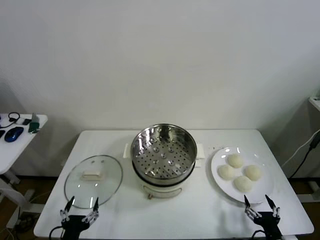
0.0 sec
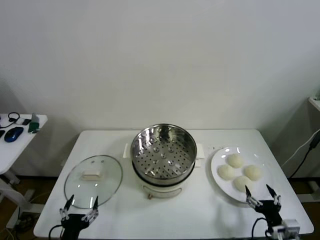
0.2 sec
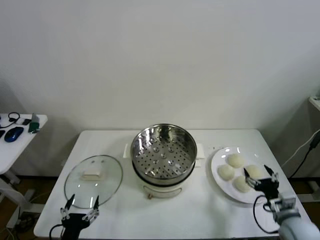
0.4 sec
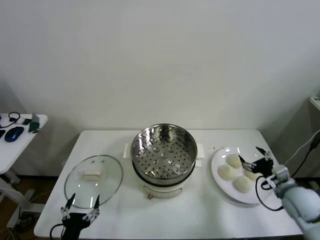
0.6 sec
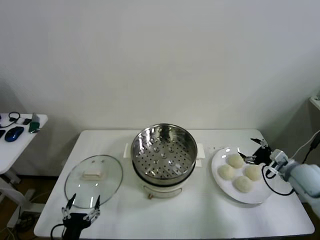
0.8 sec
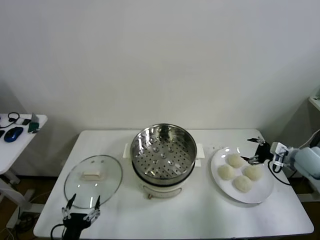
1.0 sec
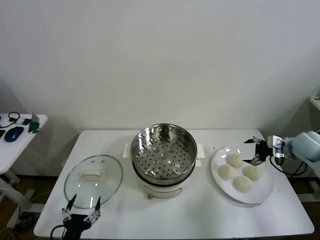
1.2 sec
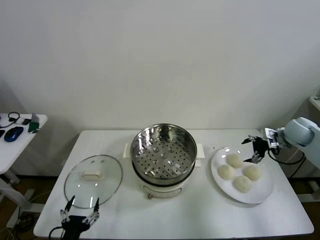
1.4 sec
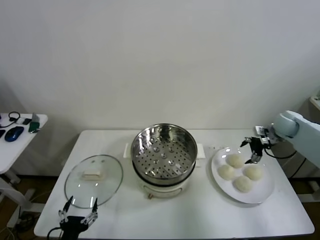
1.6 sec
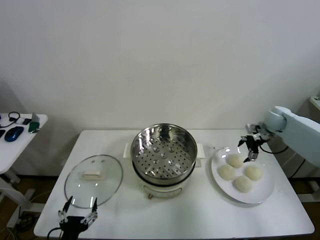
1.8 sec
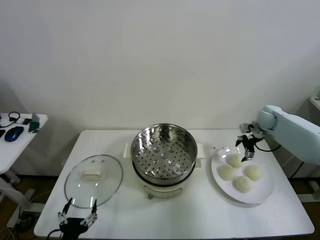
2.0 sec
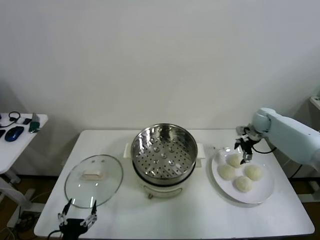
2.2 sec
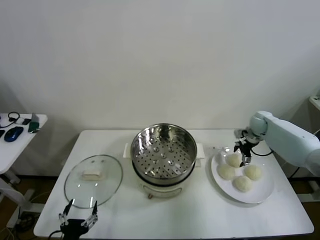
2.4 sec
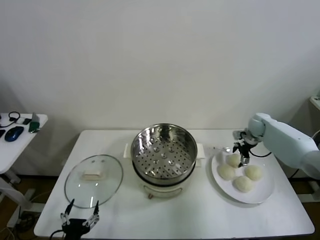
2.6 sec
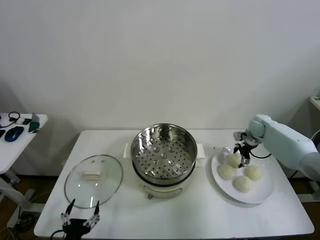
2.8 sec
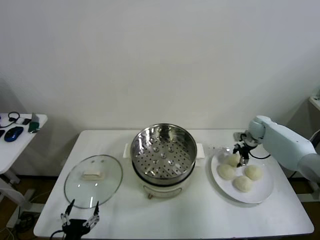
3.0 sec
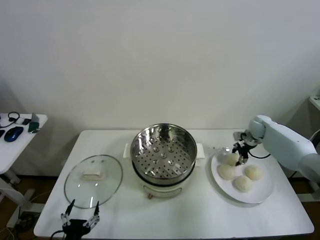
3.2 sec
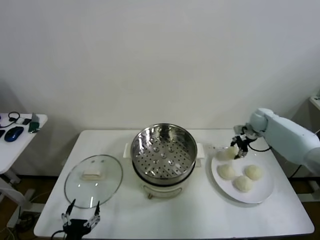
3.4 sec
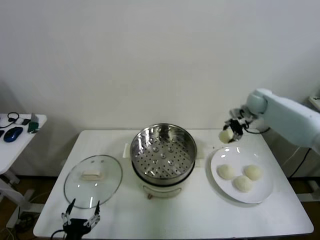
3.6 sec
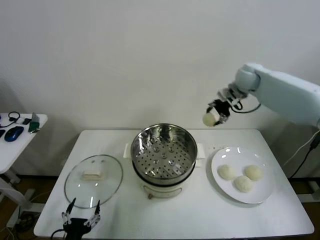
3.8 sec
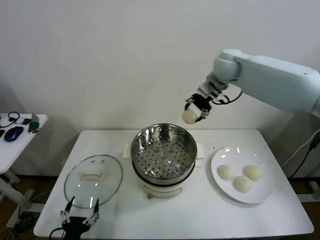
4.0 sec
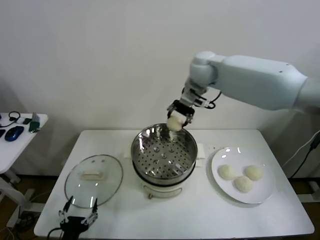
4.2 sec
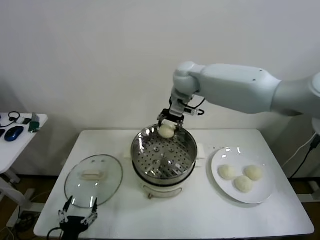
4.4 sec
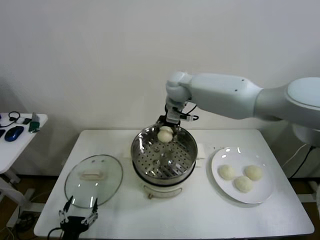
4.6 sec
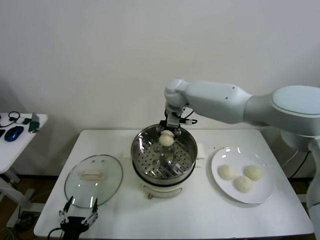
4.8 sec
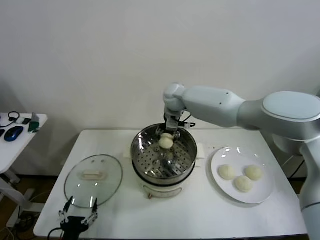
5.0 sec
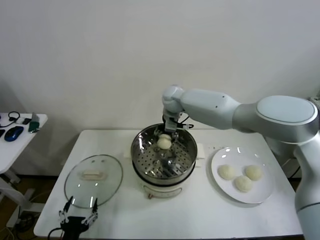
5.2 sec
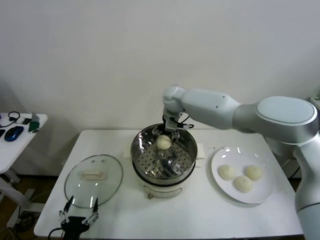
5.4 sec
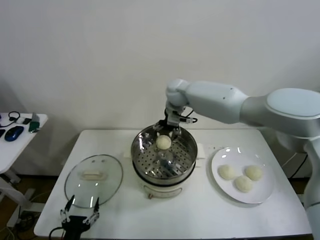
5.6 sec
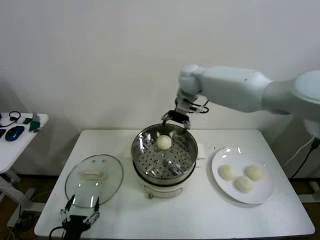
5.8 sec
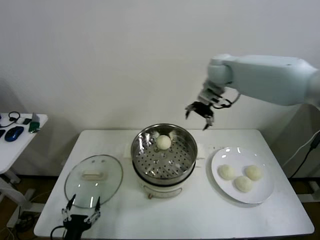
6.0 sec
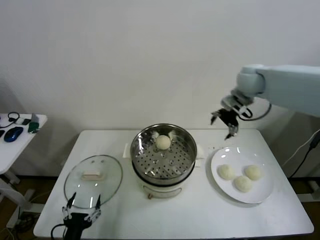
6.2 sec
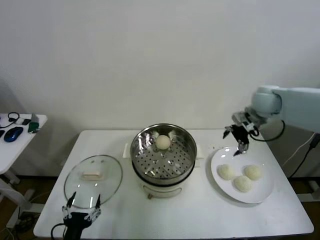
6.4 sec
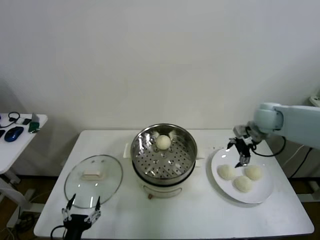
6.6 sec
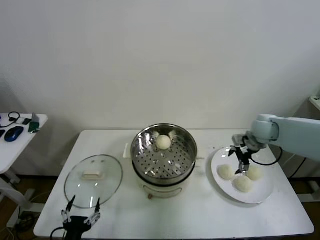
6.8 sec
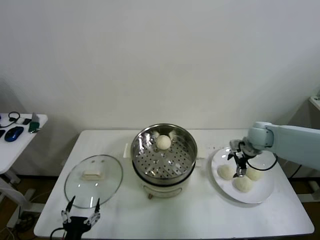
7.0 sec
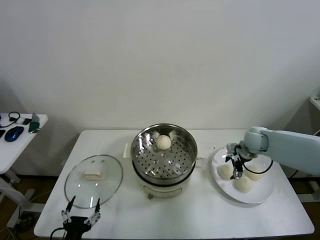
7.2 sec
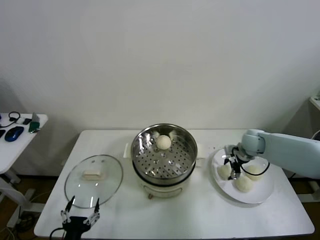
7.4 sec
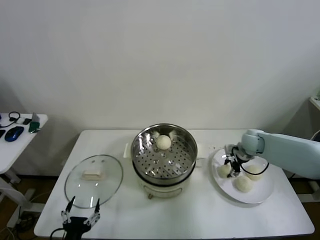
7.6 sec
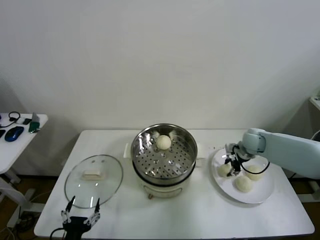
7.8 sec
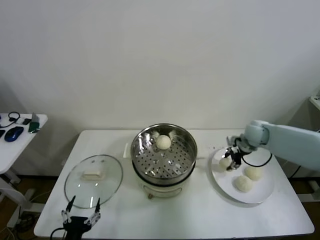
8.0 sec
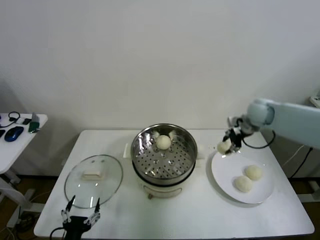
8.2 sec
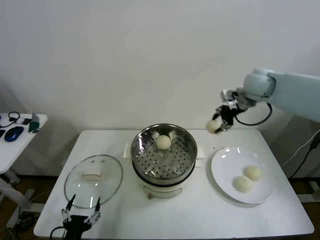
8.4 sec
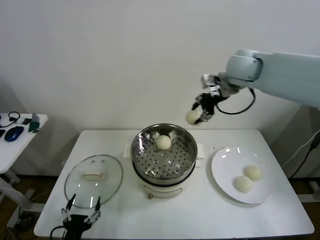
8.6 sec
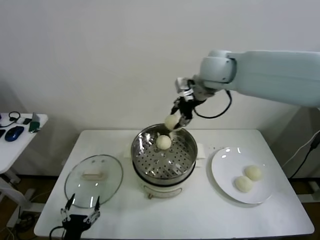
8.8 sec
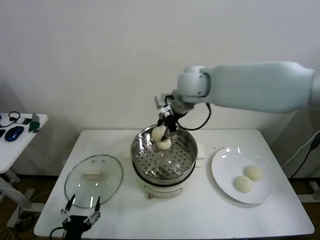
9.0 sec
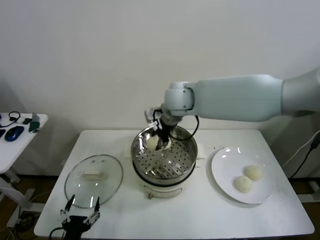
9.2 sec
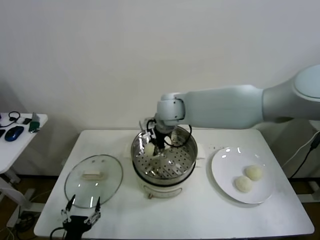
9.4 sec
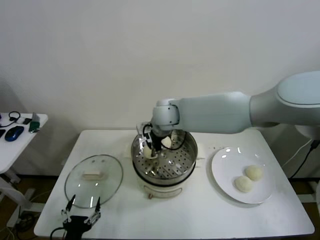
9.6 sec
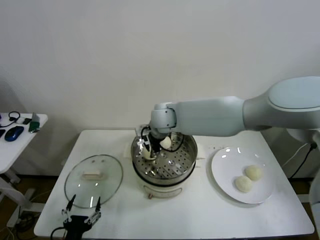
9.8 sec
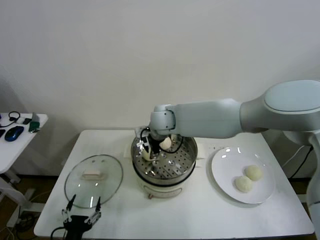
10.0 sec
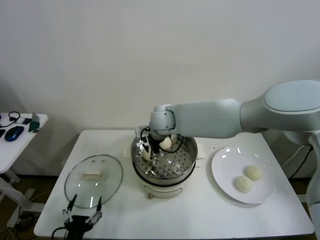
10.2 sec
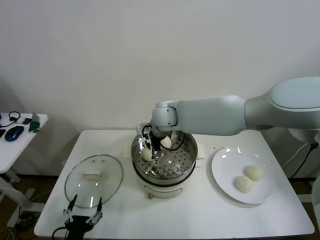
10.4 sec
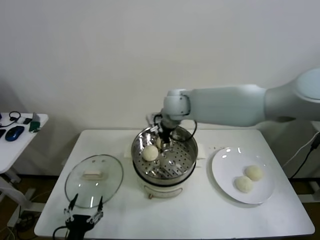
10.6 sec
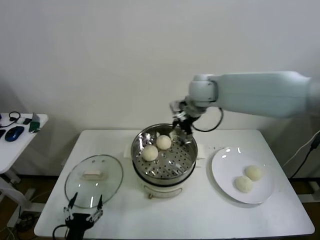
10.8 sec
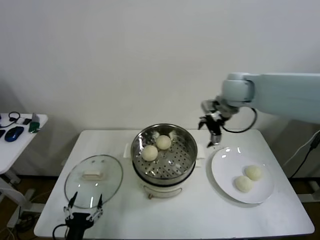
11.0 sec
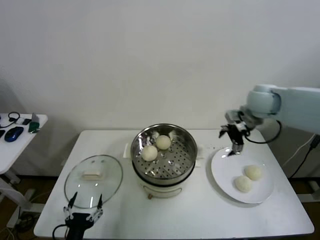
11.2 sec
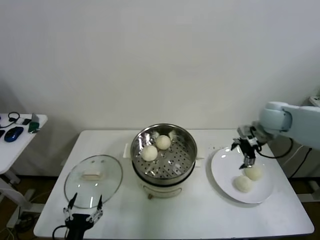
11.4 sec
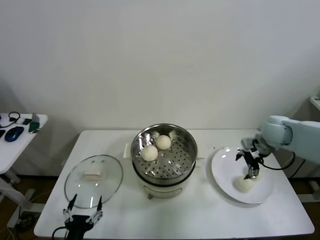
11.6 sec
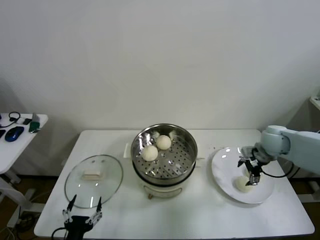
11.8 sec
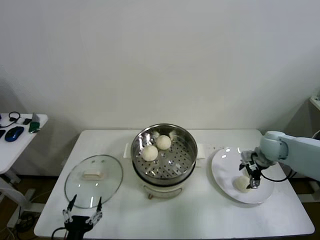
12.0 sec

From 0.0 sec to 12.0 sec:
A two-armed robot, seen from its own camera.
Step, from 0.0 sec to 3.0 sec: Grasp the baozi in the plate with right gripper.
Step, from 3.2 sec to 5.2 sec: Place the baozi on the steamer with right gripper.
Step, from 5.4 sec to 7.6 sec: Grasp the baozi in the plate with right gripper.
Step, from 7.8 sec to 10.2 sec: Place the baozi on the steamer with right gripper.
From 1.6 sec to 3.0 sec: The right gripper moves downward, roughly 10 cm, and closes its fingers.
From 3.0 sec to 4.4 sec: The right gripper heads to the left and upward, covering roughly 40 cm.
From 4.4 sec to 6.0 sec: The right gripper is displaced to the right by approximately 15 cm, and opens.
From 6.0 sec to 7.6 sec: The right gripper goes roughly 30 cm downward and to the right, and closes up.
From 7.6 sec to 9.0 sec: The right gripper shifts about 40 cm to the left and upward.
From 9.0 sec to 10.4 sec: The right gripper shifts approximately 10 cm downward and to the left, and opens.
From 10.4 sec to 12.0 sec: The right gripper is displaced to the right by about 35 cm.

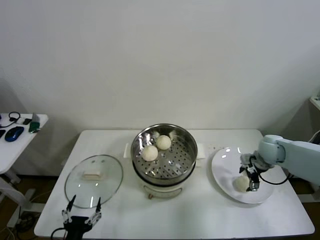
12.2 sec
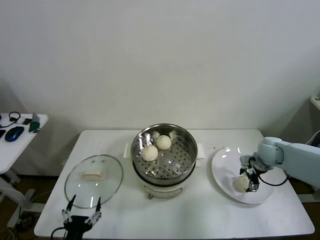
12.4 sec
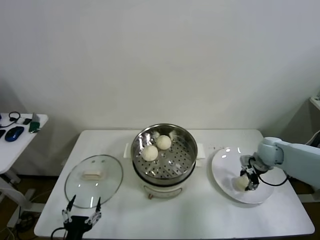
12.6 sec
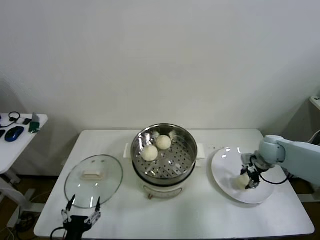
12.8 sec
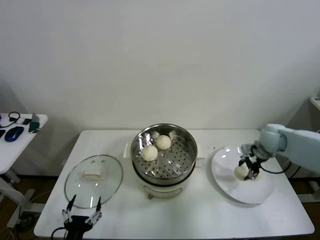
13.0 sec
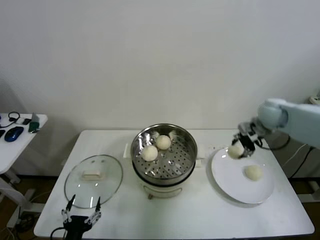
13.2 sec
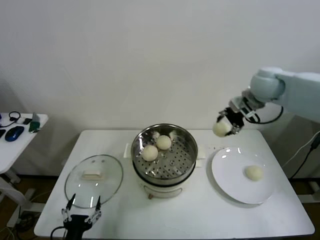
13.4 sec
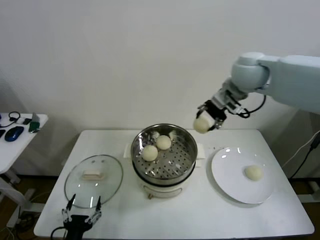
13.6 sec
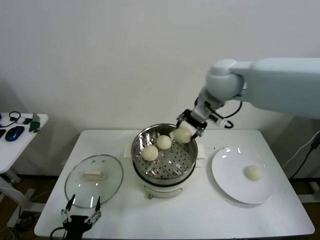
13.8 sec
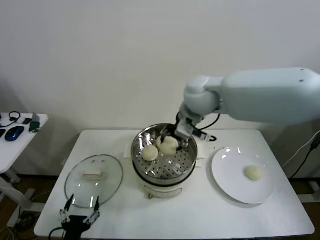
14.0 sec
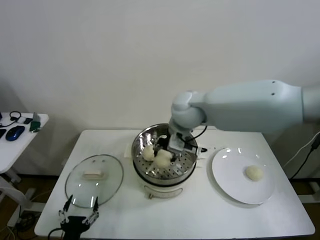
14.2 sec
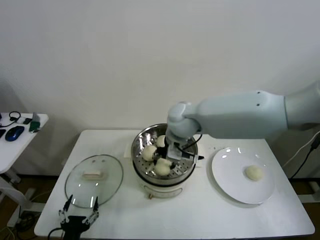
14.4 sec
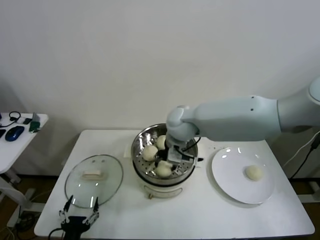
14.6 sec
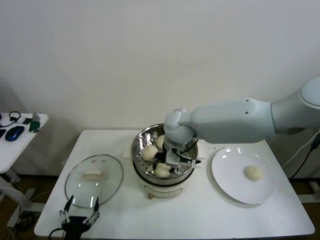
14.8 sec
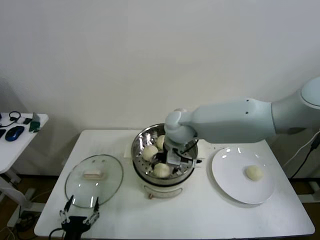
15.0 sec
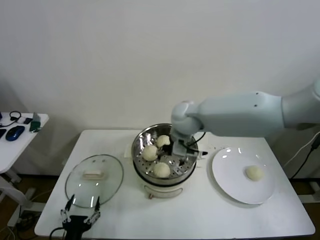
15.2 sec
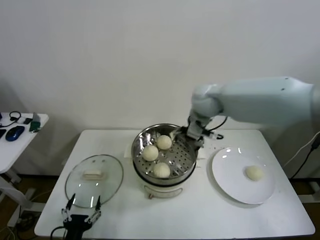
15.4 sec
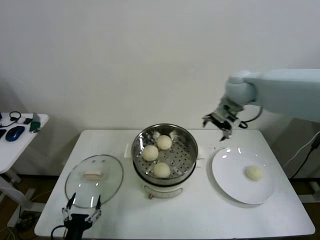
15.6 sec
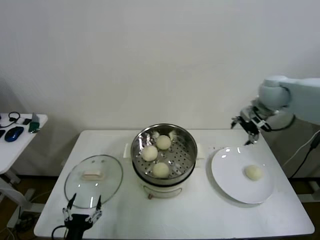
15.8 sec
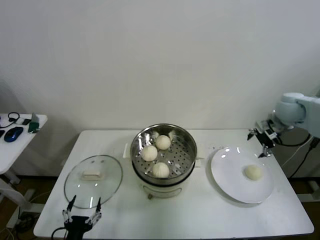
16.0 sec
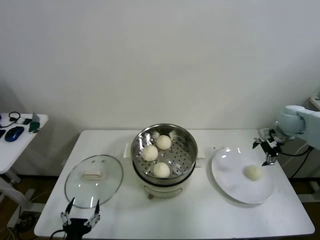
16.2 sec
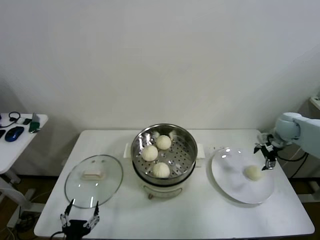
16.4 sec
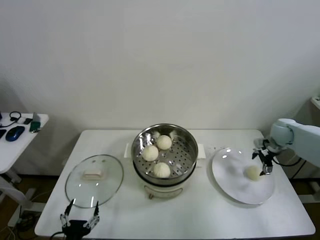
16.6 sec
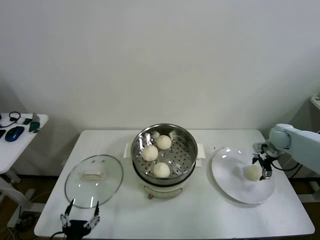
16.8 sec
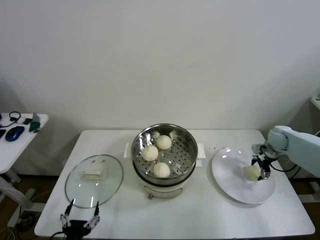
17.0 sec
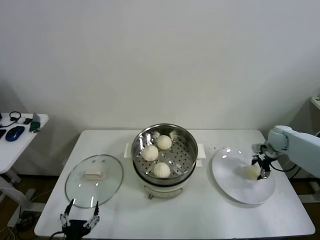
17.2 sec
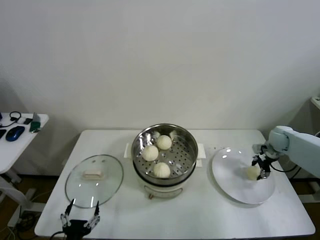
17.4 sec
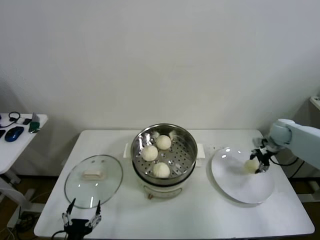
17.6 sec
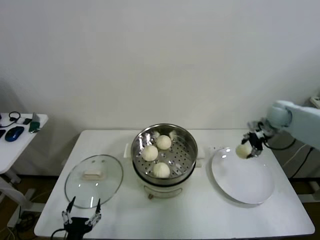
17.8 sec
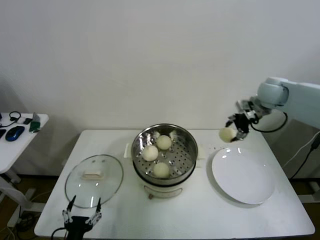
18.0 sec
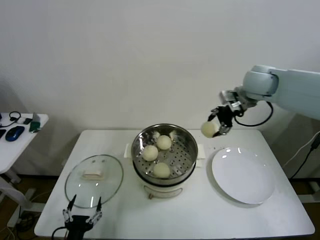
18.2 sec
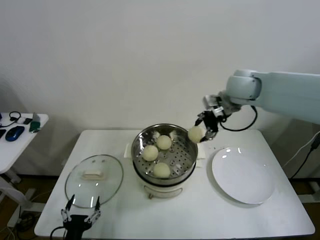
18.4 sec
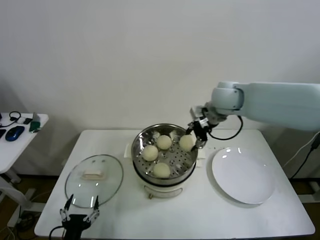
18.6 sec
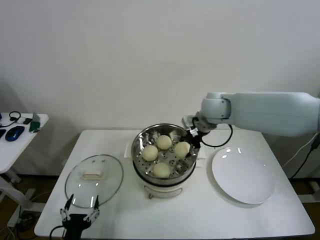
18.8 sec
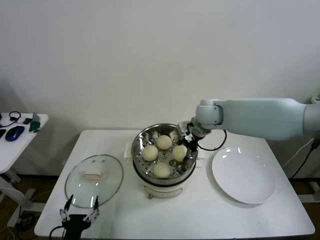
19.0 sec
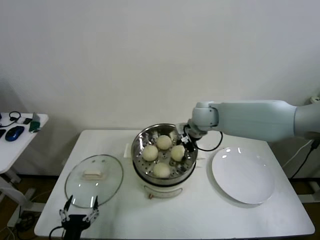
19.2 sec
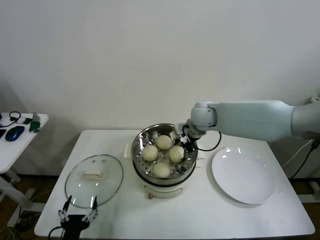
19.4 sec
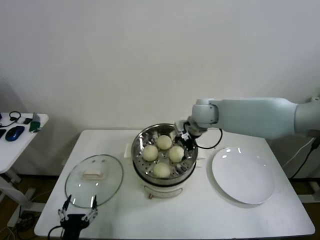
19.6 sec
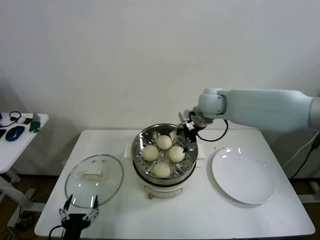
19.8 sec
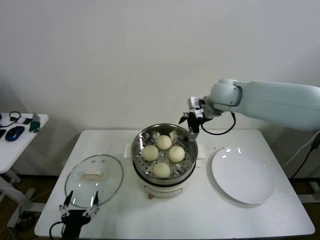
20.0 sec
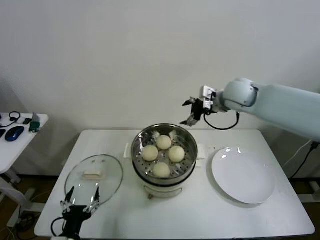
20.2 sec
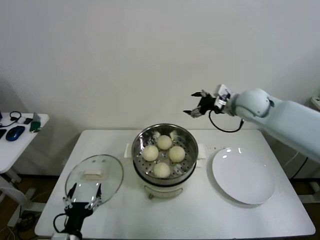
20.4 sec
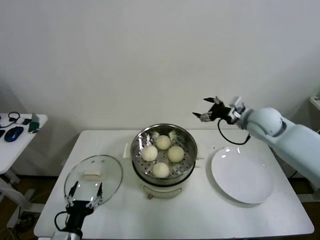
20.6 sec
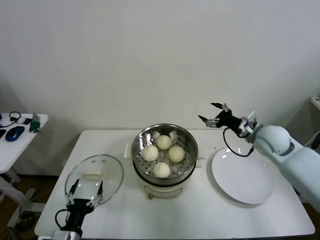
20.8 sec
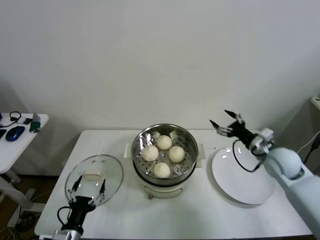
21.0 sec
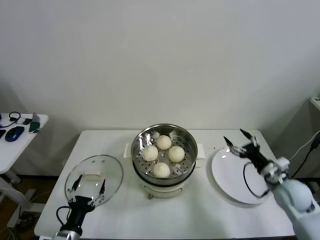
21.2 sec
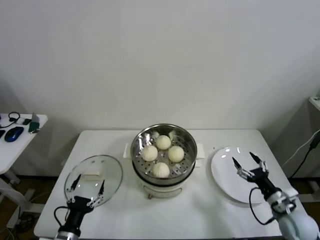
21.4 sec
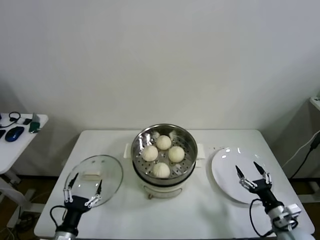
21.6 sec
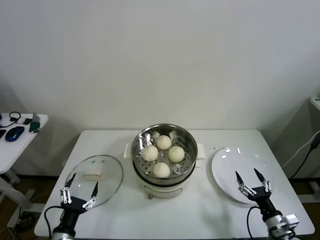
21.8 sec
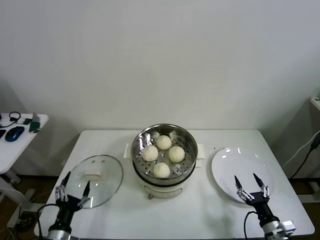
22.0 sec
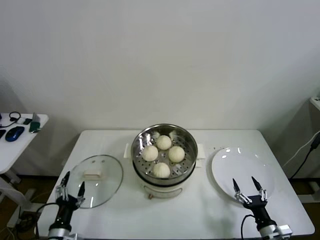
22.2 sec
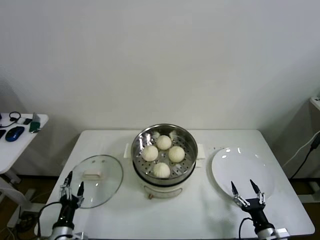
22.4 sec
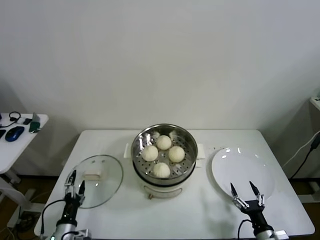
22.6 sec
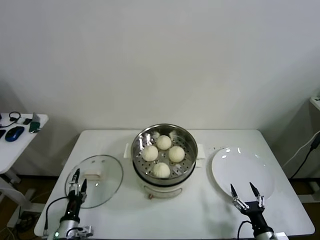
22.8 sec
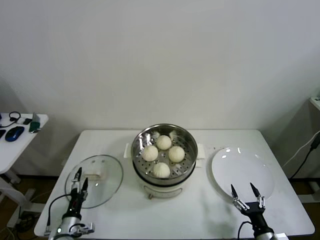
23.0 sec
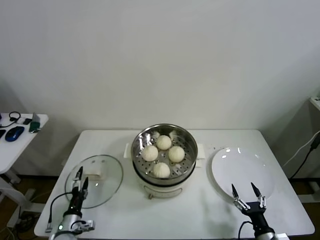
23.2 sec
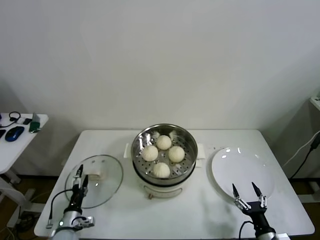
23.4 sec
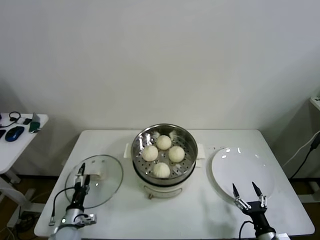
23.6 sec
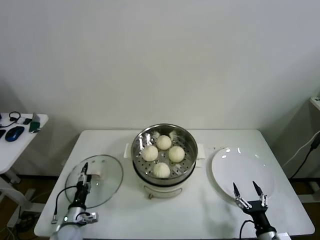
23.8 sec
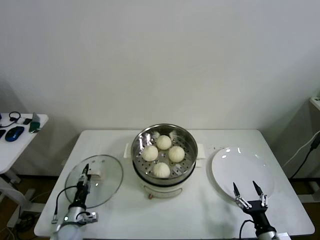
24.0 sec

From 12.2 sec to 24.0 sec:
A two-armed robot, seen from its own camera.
Step, from 12.8 sec to 15.0 sec: Place the baozi on the steamer with right gripper.
Step, from 15.2 sec to 17.2 sec: Grasp the baozi in the plate with right gripper.
Step, from 17.4 sec to 19.4 sec: Place the baozi on the steamer with right gripper.
From 12.2 sec to 13.6 sec: The right gripper moves upward and to the left, about 35 cm, and closes up.
From 13.6 sec to 15.2 sec: The right gripper travels downward and to the left by about 20 cm, and opens up.
From 15.2 sec to 16.6 sec: The right gripper shifts roughly 40 cm to the right.
From 16.6 sec to 18.2 sec: The right gripper goes about 30 cm upward and to the left, and closes.
From 18.2 sec to 19.6 sec: The right gripper heads to the left and downward, covering roughly 15 cm, and opens its fingers.
From 19.6 sec to 21.0 sec: The right gripper goes roughly 30 cm to the right, backward and downward.
From 21.0 sec to 22.6 sec: The right gripper goes approximately 30 cm backward and downward, while the left gripper heads downward, covering about 5 cm.
From 22.6 sec to 24.0 sec: The left gripper moves forward and downward, about 10 cm, and closes up.
